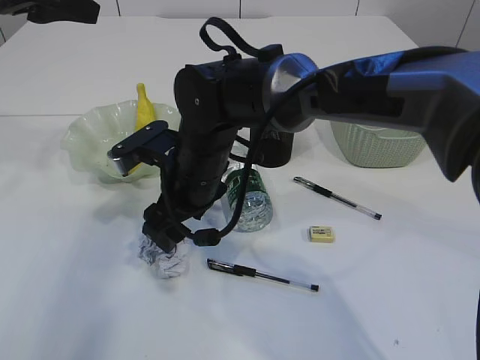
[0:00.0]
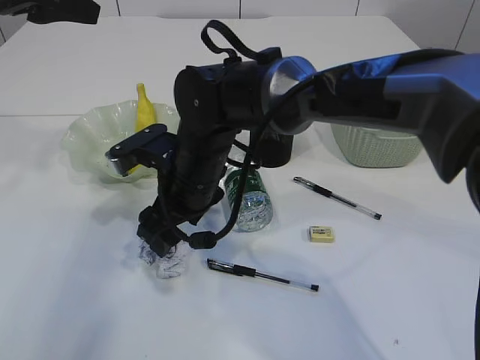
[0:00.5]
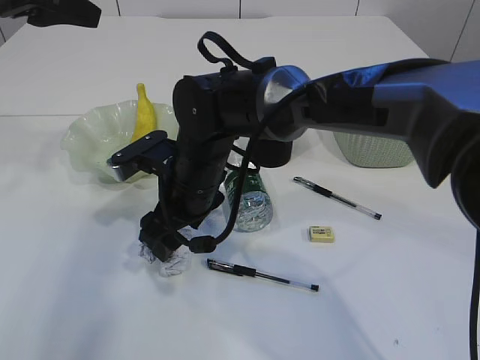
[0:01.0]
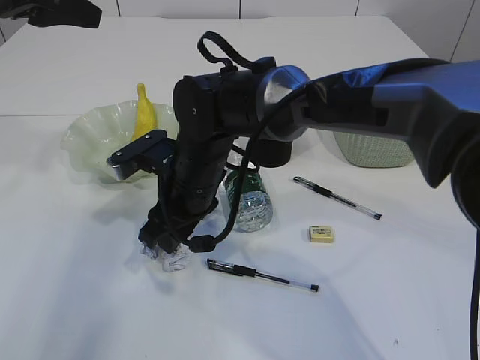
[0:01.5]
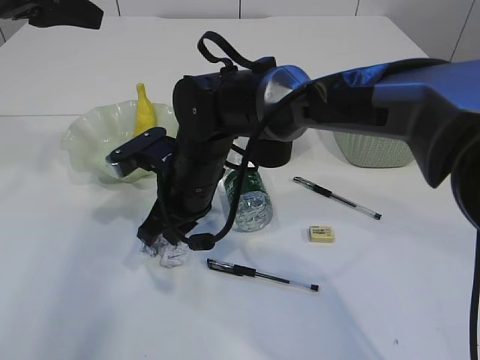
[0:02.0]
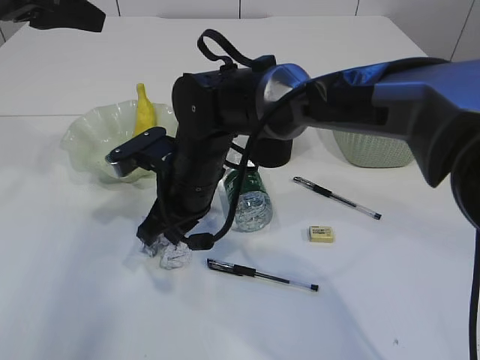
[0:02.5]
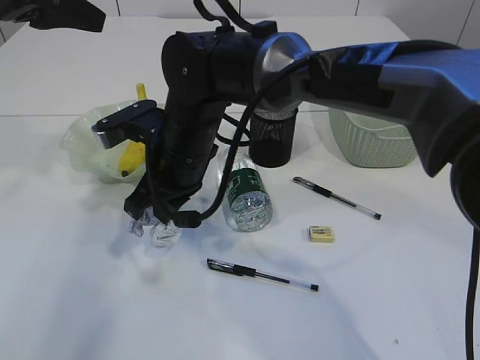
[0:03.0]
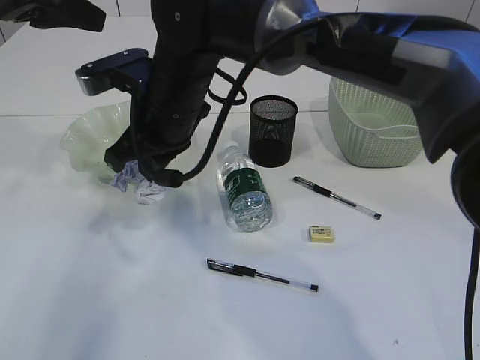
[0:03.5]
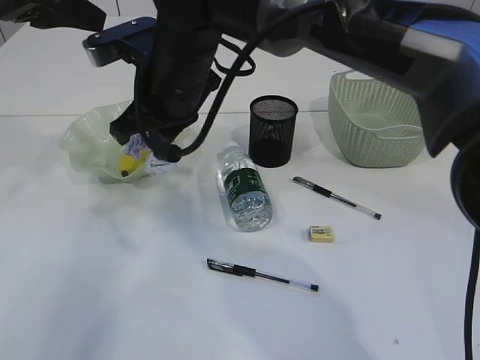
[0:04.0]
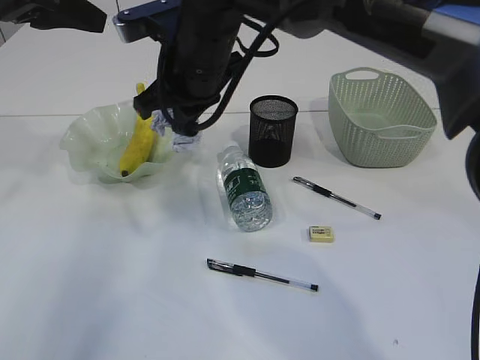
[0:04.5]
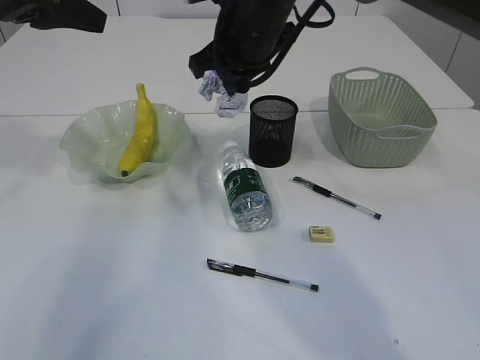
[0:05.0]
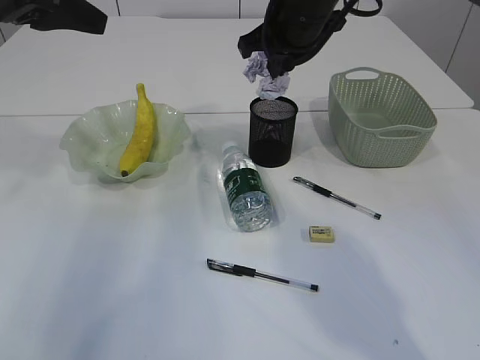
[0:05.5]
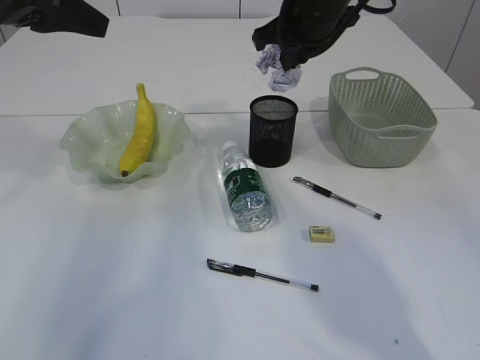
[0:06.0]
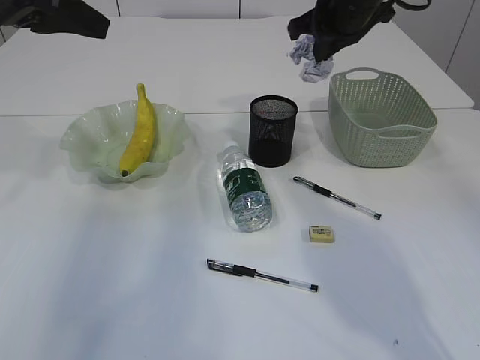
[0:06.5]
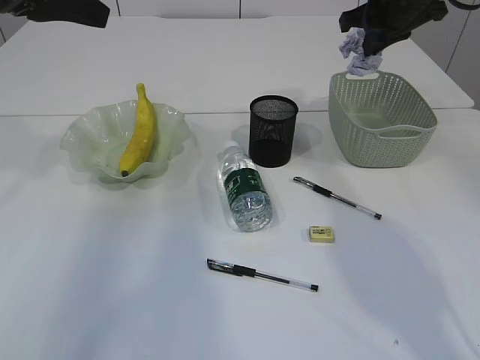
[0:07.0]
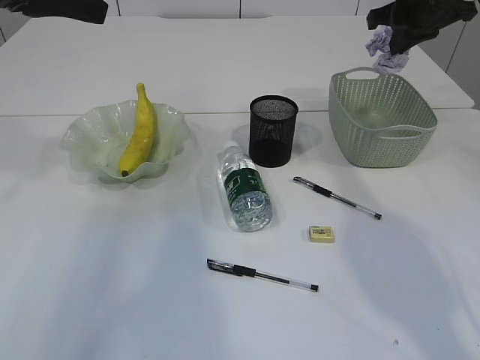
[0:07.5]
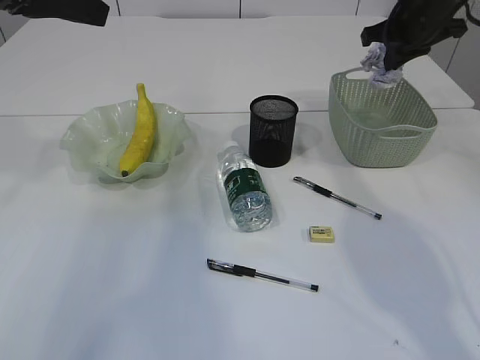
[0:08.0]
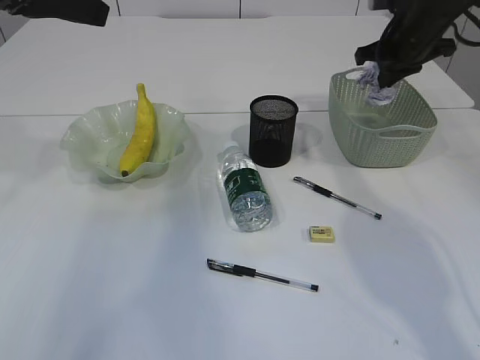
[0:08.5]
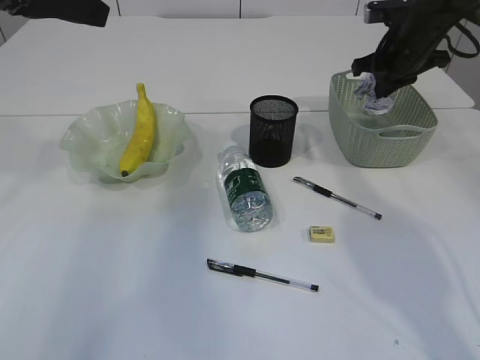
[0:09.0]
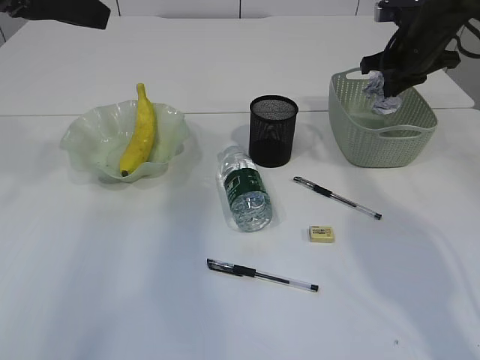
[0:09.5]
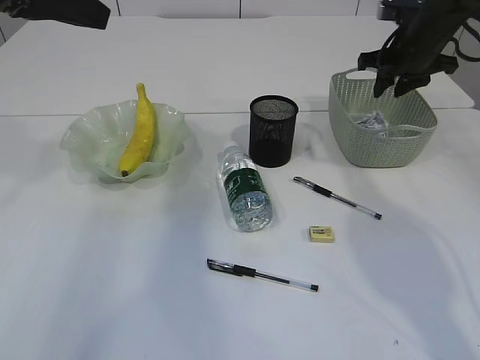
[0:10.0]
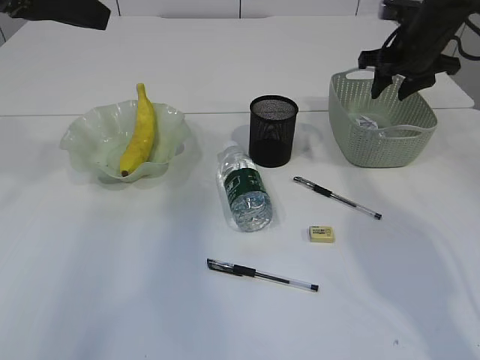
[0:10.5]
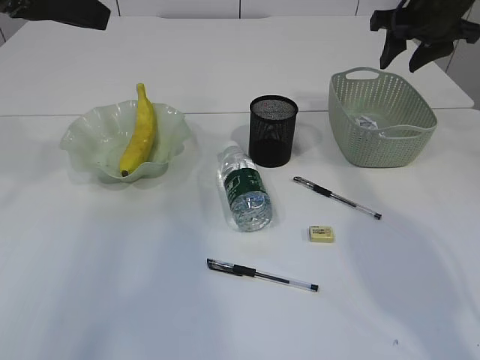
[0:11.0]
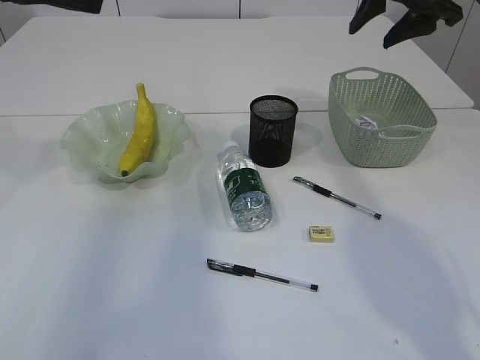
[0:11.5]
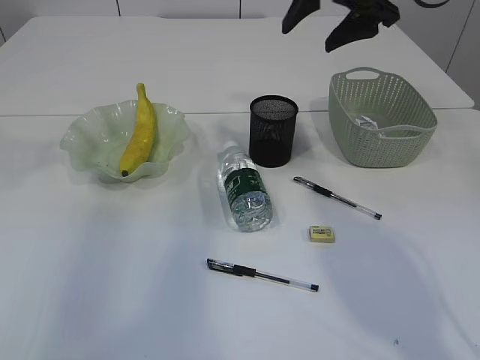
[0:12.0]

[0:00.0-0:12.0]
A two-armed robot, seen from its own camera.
Step, 0:00.0 to 0:03.0: Pick up the waste paper.
Step, 0:03.5 to 0:10.0: Place the waste paper in the basket.
0:00.0 to 0:02.0: The right gripper closes up.
0:02.0 to 0:04.0: The right gripper shifts roughly 10 cm upward.
0:04.0 to 0:06.0: The right gripper heads to the right and forward, covering approximately 20 cm.
0:06.0 to 0:08.0: The right gripper heads to the right, covering about 15 cm.
0:08.0 to 0:10.0: The right gripper shifts by about 5 cm, and opens up.
0:10.0 to 0:12.0: The left gripper ends up some 5 cm from where it was, while the right gripper travels to the left, upward and backward by roughly 15 cm, and opens up.

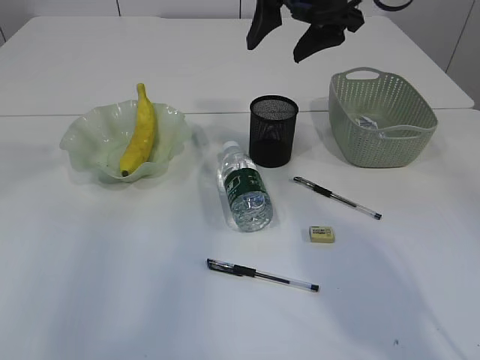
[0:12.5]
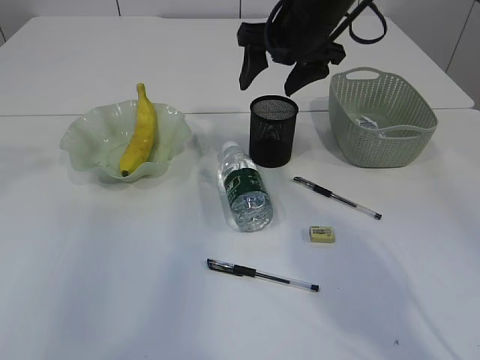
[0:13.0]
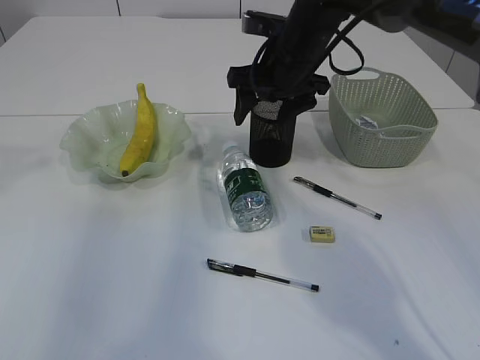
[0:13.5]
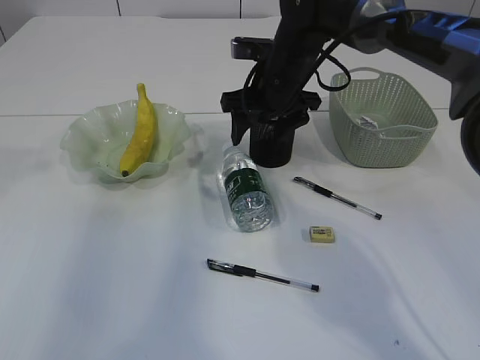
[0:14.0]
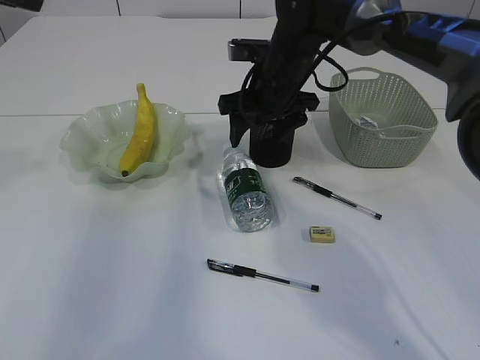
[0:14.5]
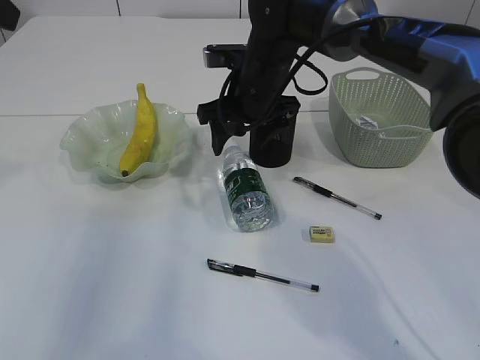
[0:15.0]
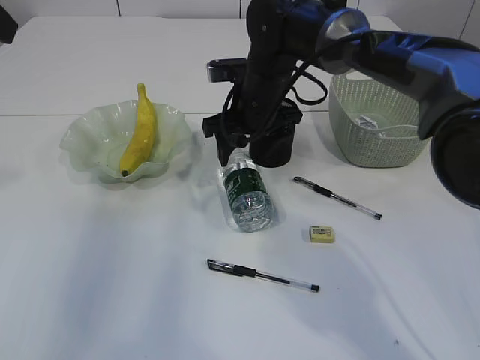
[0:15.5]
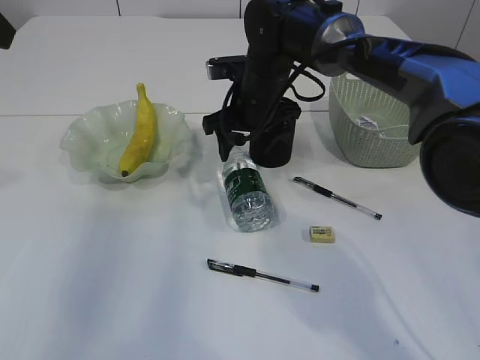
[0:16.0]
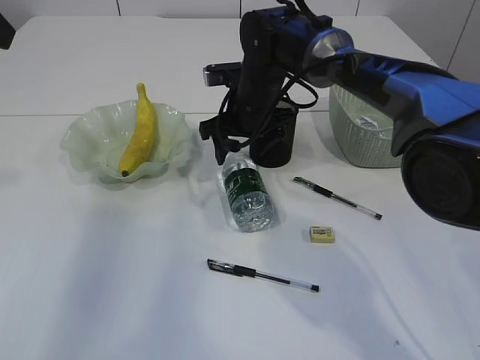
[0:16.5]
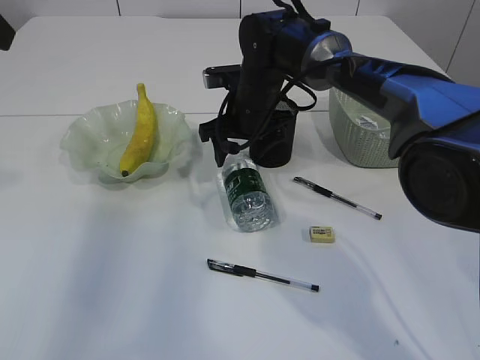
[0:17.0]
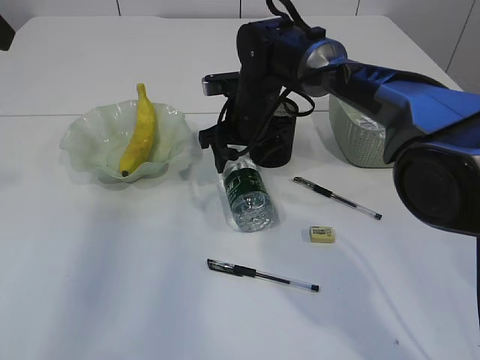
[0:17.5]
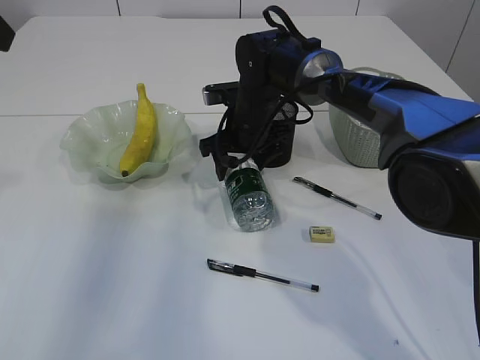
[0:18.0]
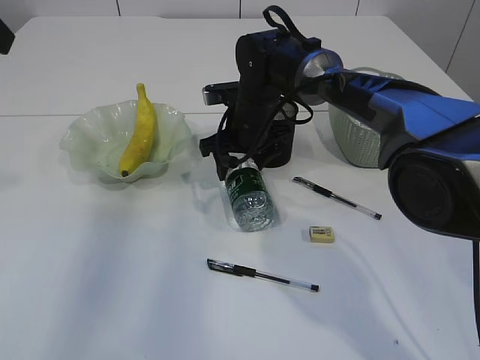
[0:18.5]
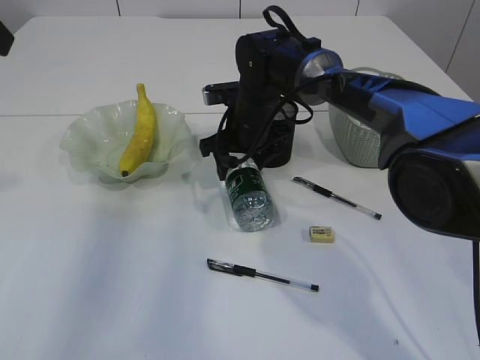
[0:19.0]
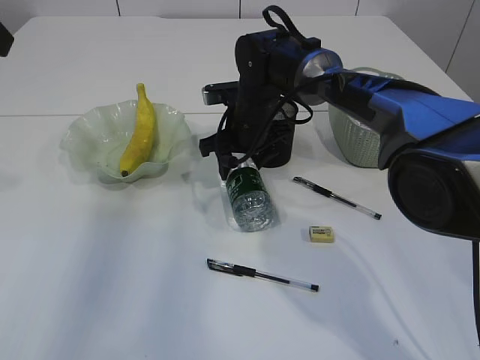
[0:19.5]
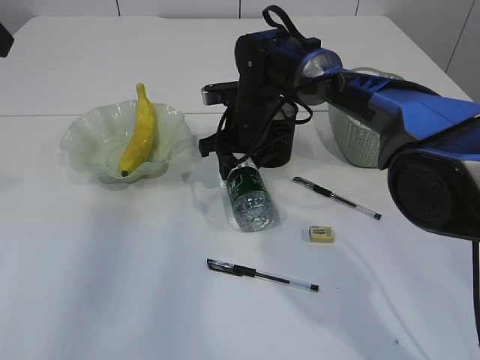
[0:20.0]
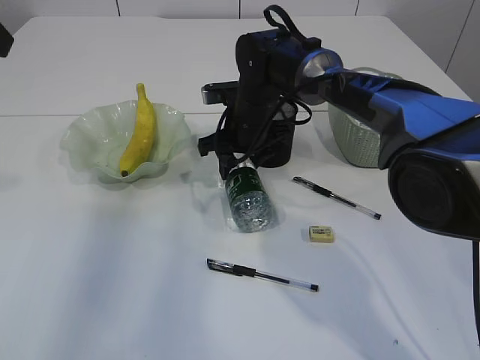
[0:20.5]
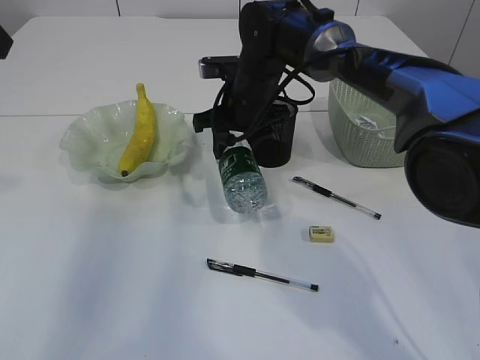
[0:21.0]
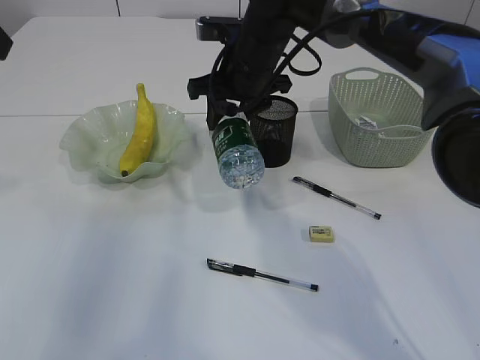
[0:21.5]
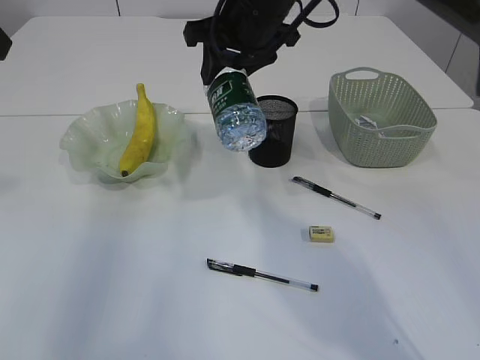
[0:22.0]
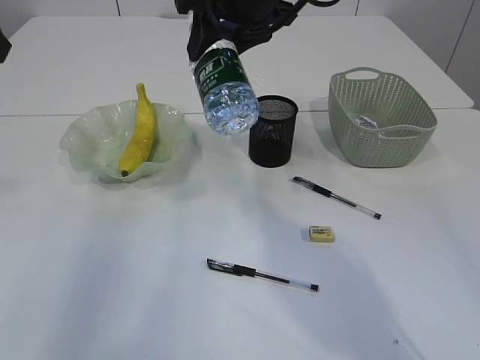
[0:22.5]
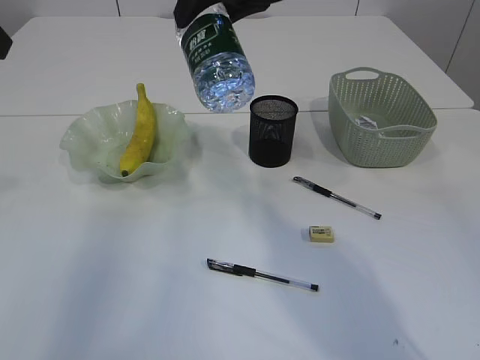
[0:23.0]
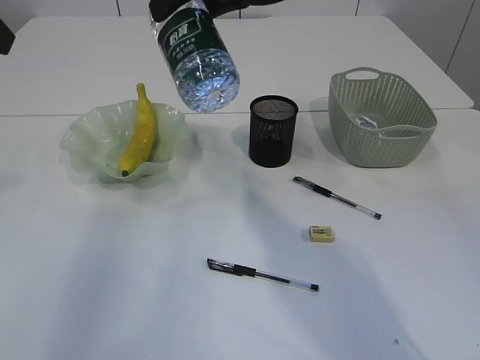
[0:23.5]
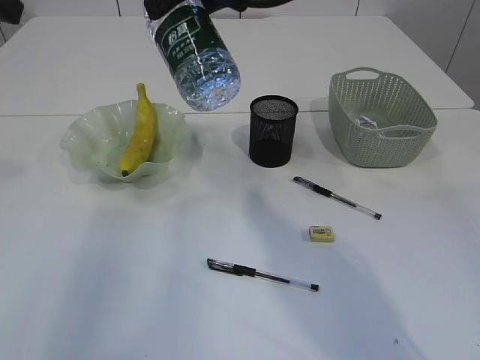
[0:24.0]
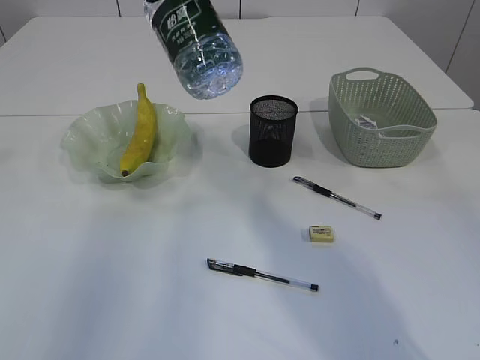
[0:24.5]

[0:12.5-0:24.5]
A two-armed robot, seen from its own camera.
Step, 0:12.5 to 0:22.0: Pick up the bottle with the right arm.
0:12.5 to 0:14.5: The right gripper is displaced downward by approximately 10 cm.
0:16.5 to 0:18.5: The grippers move only a little.
0:18.5 to 0:20.5: Both grippers stay put.
0:20.5 to 0:22.5: The right gripper travels upward by approximately 20 cm.
0:22.5 to 0:24.5: The right gripper moves upward, approximately 5 cm.

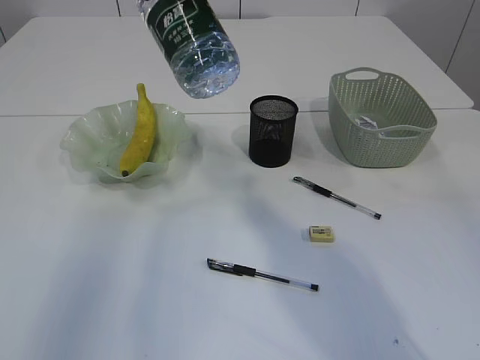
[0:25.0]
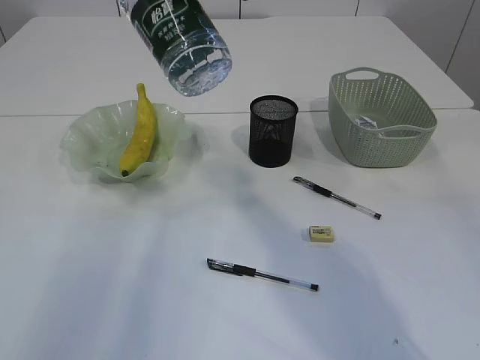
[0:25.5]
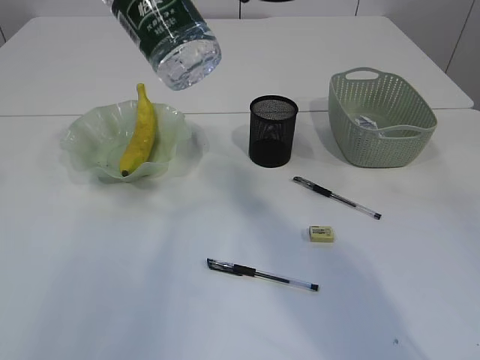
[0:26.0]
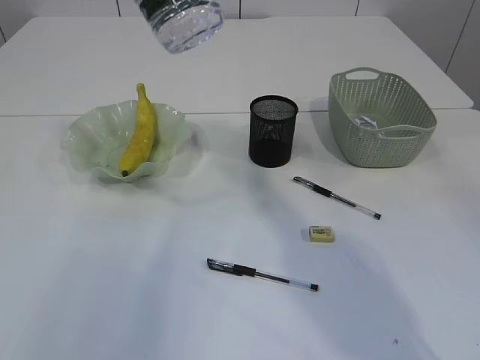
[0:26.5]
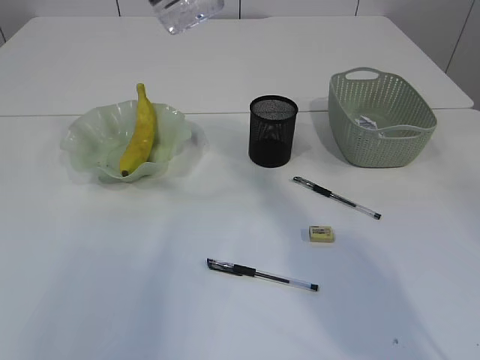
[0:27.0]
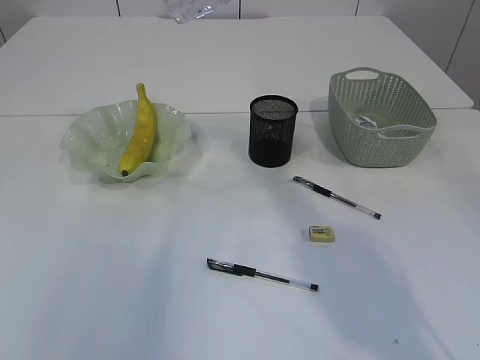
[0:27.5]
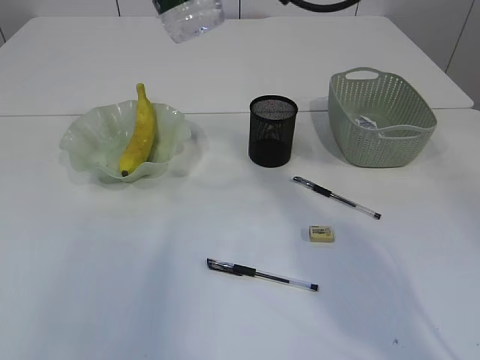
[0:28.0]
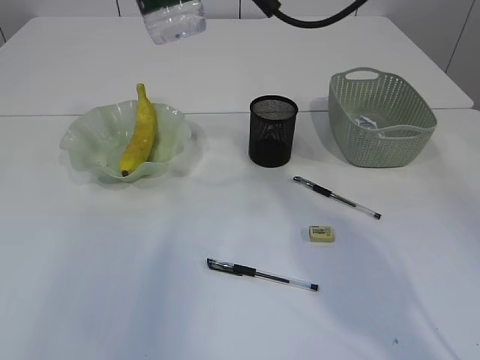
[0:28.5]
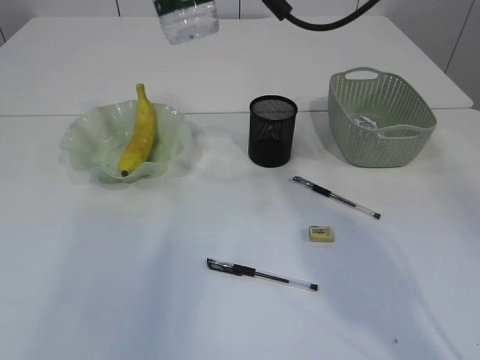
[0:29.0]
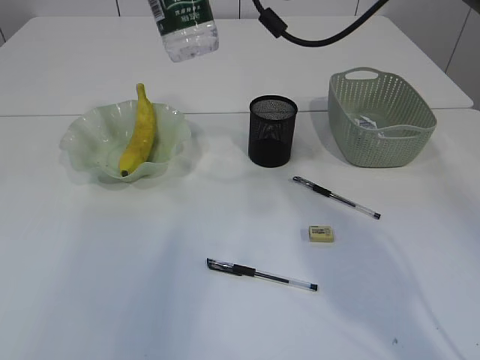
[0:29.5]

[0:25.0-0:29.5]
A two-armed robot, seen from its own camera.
0:27.0 to 0:29.5: The right gripper is displaced downward and forward by about 10 cm.
